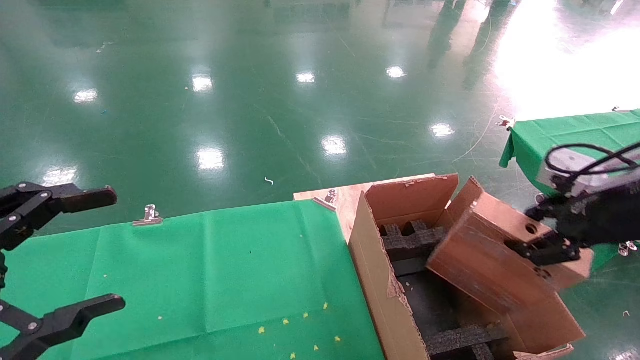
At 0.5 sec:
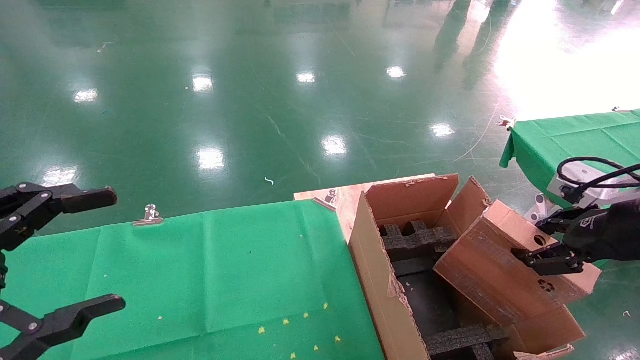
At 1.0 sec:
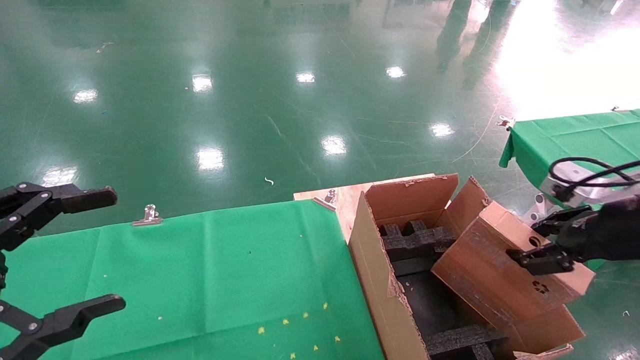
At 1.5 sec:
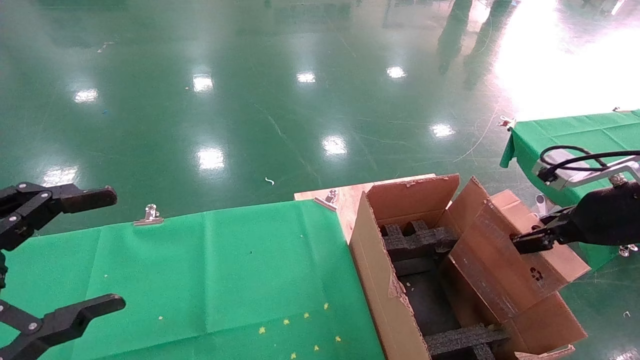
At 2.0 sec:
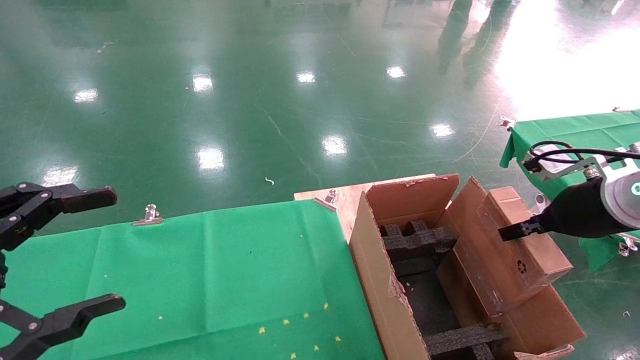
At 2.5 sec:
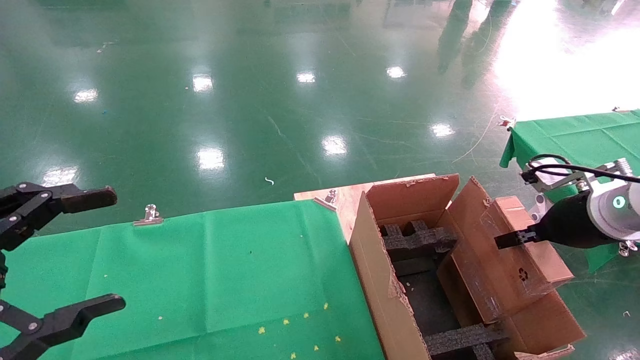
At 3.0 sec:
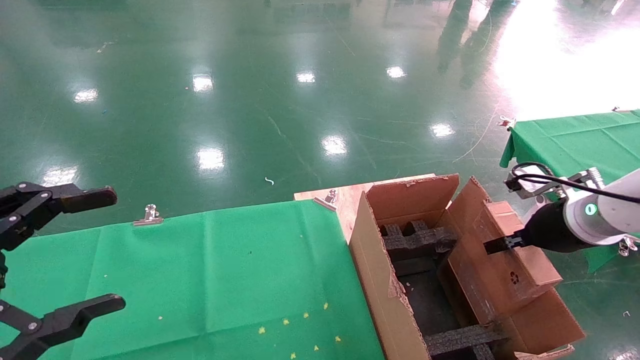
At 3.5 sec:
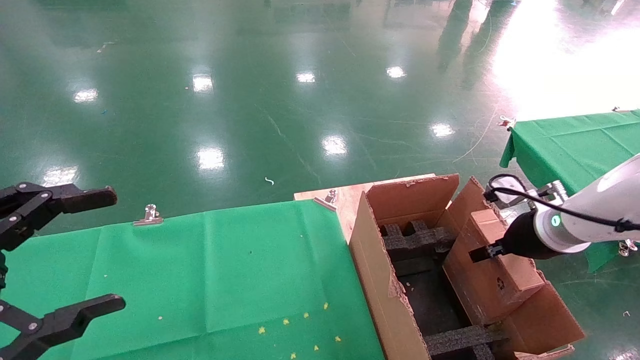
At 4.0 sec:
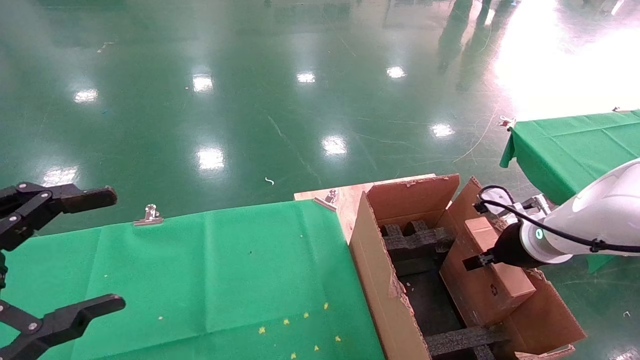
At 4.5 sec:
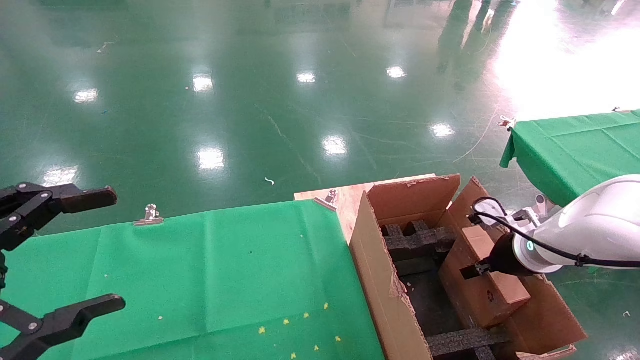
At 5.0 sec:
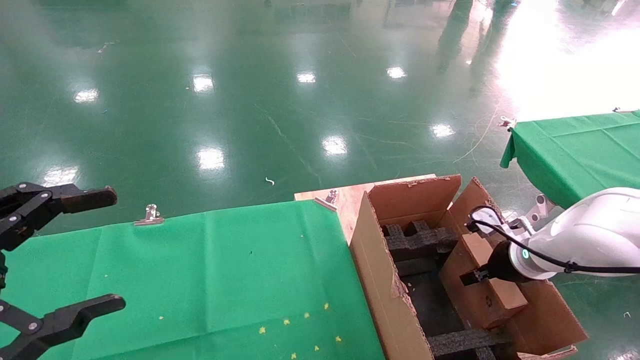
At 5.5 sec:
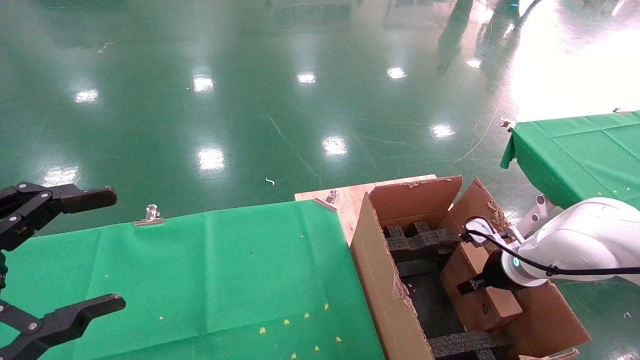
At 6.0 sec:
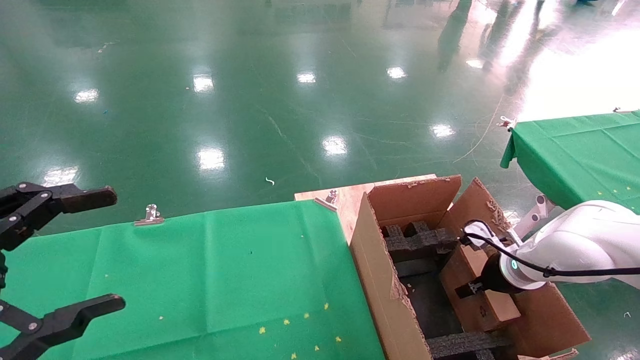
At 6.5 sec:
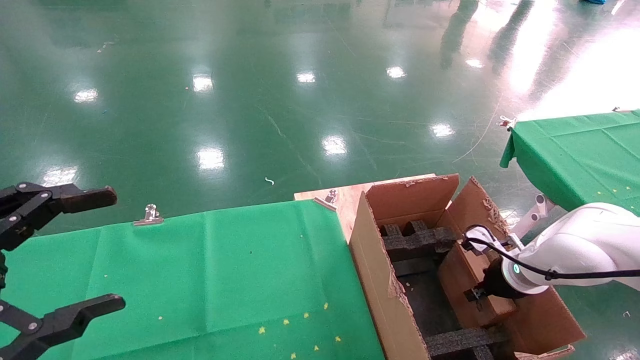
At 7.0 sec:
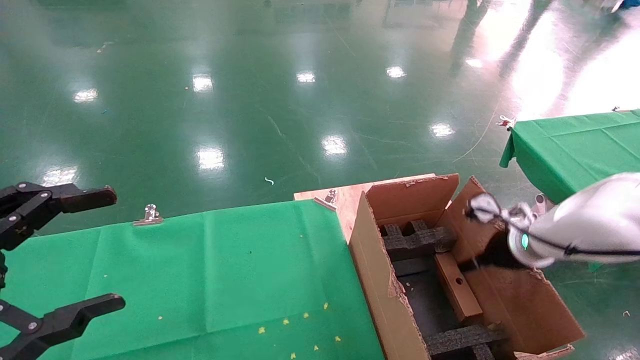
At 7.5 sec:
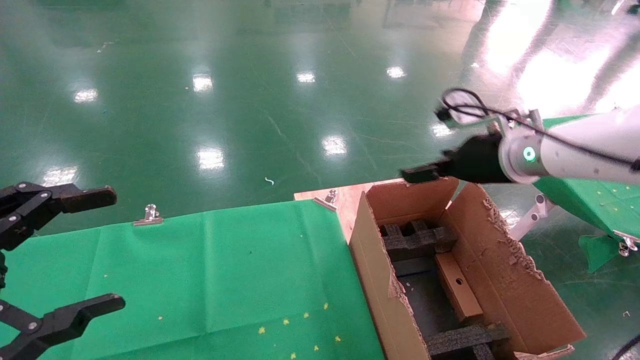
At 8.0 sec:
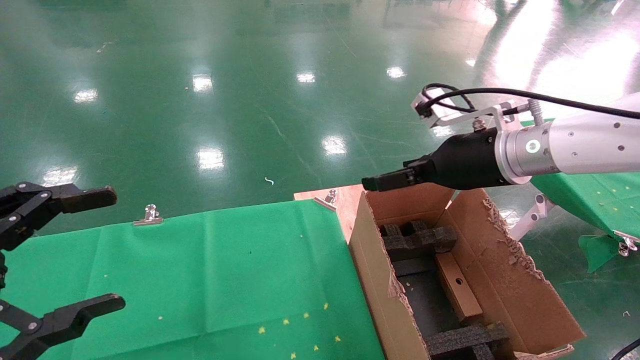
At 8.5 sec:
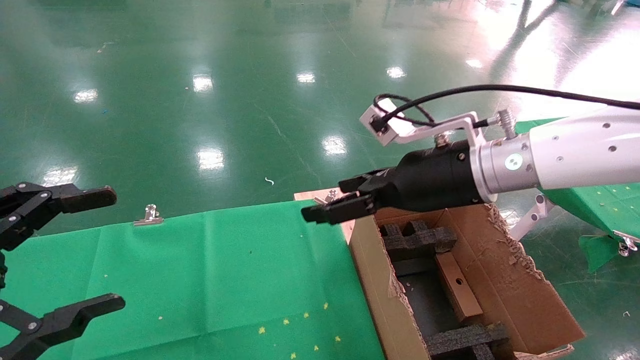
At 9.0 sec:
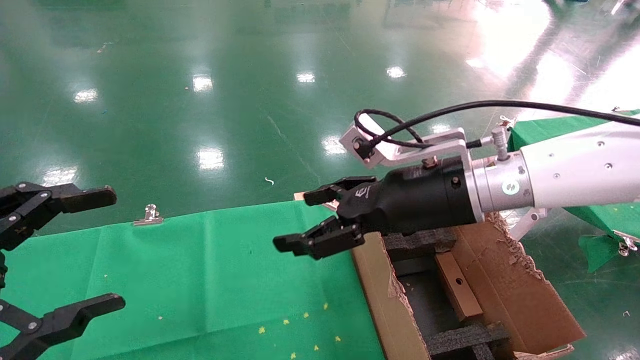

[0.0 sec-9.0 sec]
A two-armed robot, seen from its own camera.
Task of the whole recording: using a robotic arm to pick up a cardboard box and palace it the carton.
Step, 0.0 sec to 7.0 sec: Place the mouse and the power cord paper box into the container.
0.0 sec to 2.0 sec: The right gripper shifts some 5 cm forward.
2.0 sec to 4.5 sec: The right gripper is displaced downward and forward by roughly 15 cm.
4.5 sec to 7.0 sec: The right gripper moves some 5 cm downward and comes back, and opens.
7.0 sec to 9.0 sec: The right gripper heads to the left, upward and backward, covering some 25 cm.
